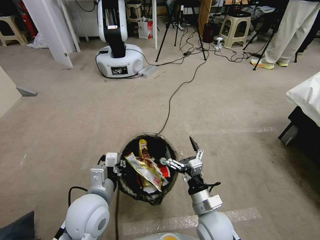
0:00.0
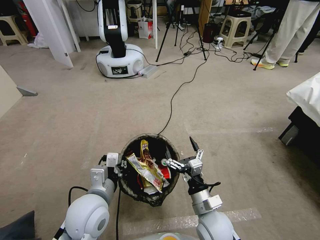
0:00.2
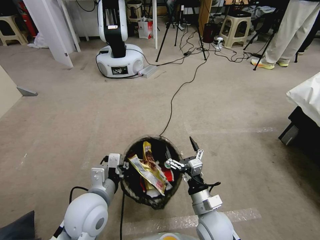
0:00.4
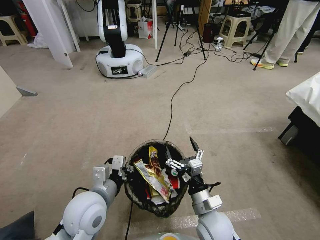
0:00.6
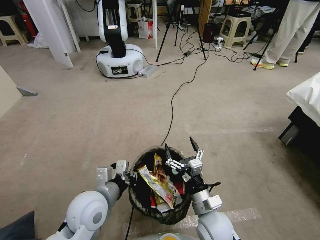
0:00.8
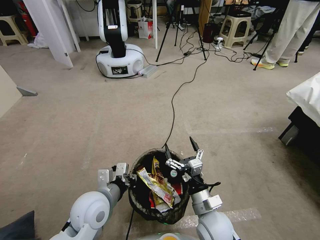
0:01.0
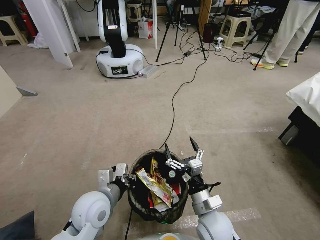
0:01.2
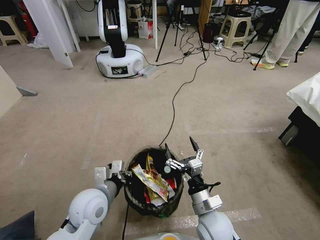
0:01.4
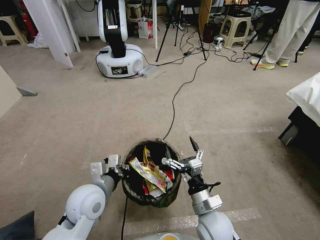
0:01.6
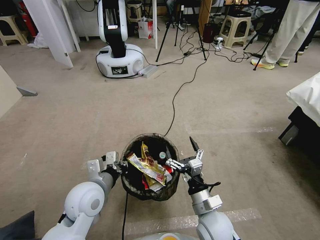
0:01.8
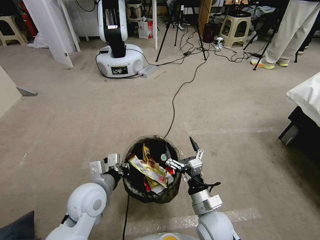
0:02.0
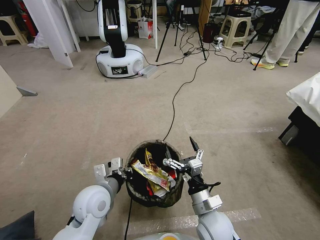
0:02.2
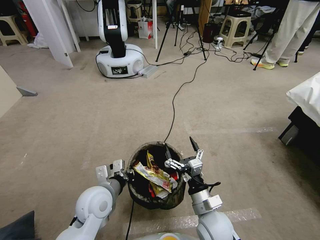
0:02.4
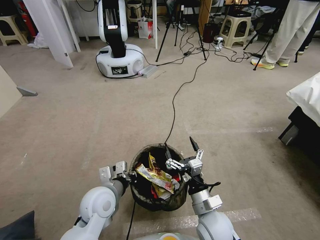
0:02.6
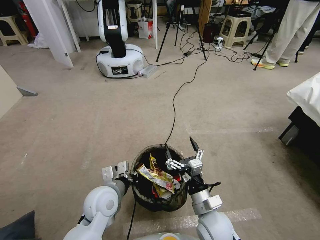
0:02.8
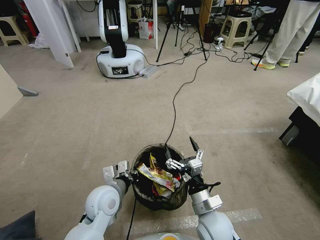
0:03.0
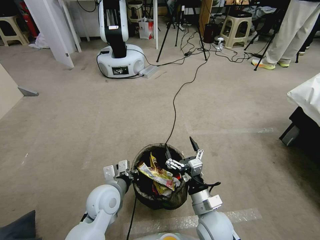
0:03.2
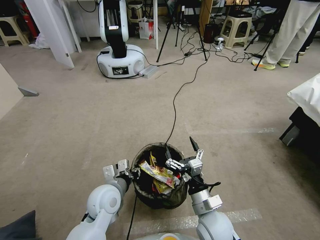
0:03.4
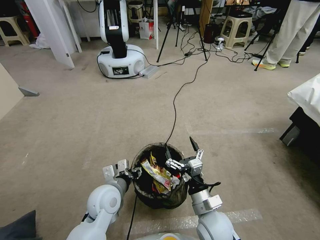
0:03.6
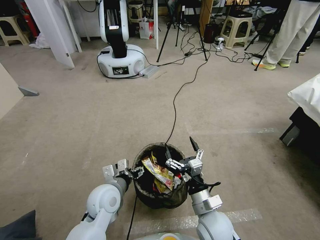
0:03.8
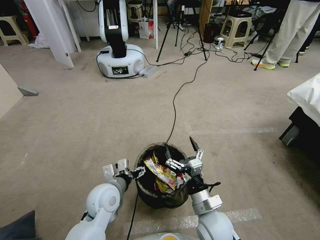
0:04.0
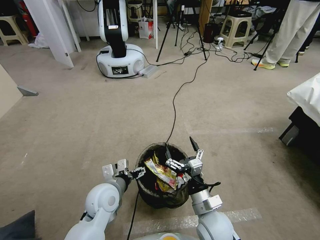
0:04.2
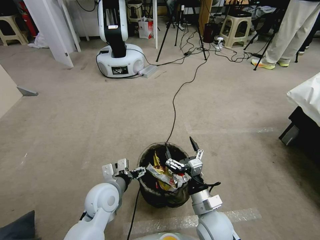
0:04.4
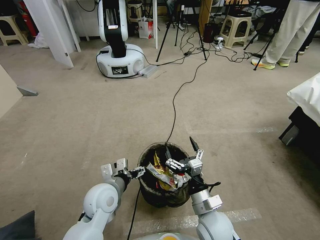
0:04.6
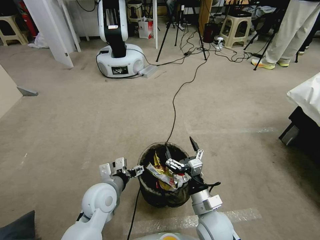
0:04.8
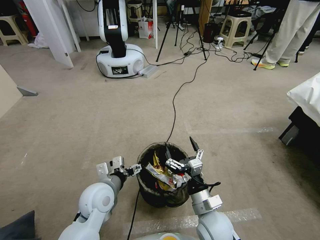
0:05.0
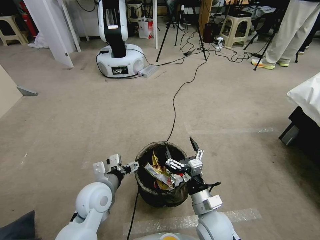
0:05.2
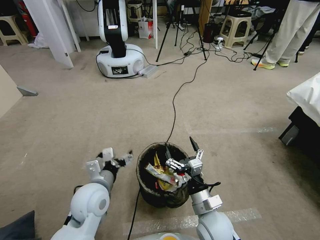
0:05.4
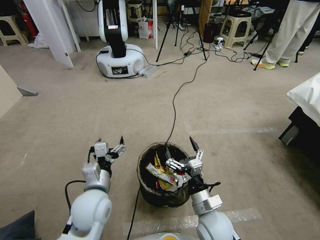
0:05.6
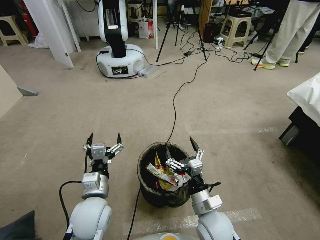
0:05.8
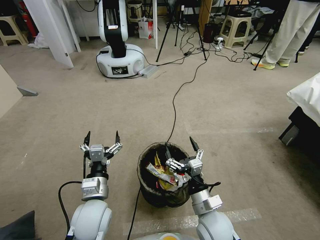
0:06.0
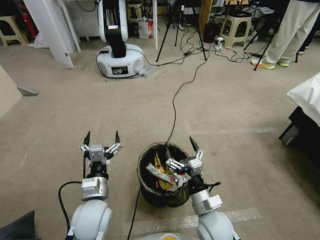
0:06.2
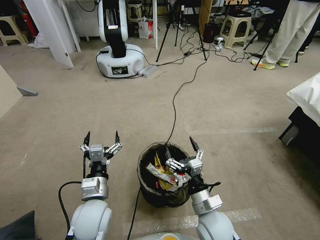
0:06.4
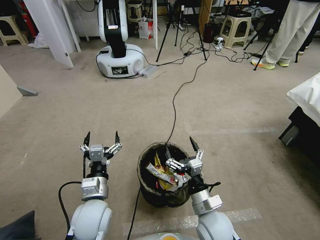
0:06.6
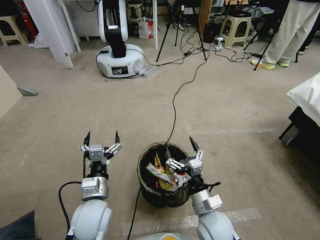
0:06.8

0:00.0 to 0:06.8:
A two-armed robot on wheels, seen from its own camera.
Task of the whole recording: Pick up the trash bin, then pick up the garbage from the floor and place it into the trash bin.
0:01.4 to 0:02.8: The grippers make only small movements.
0:02.8 to 0:04.0: The left gripper opens up.
0:04.0 to 0:05.4: The left gripper moves roughly 5 cm.

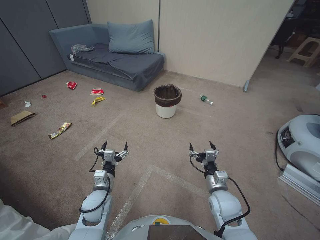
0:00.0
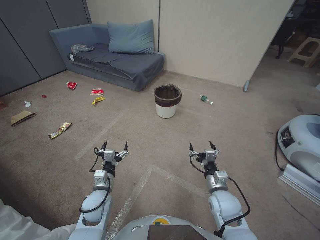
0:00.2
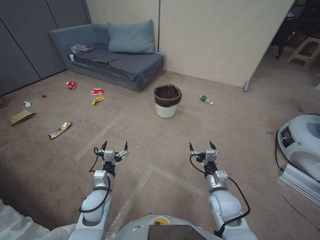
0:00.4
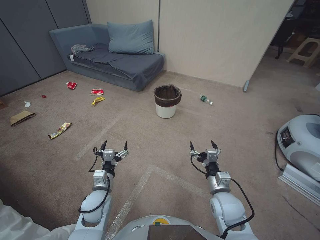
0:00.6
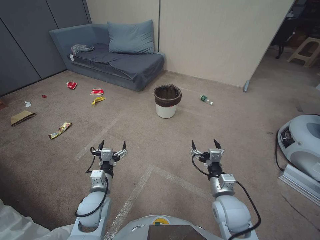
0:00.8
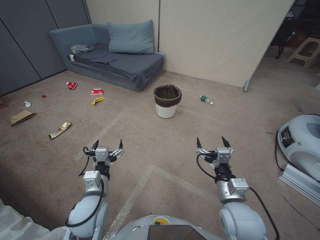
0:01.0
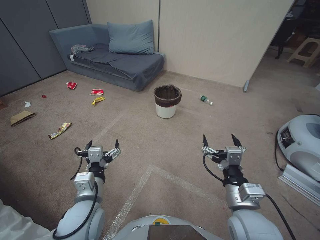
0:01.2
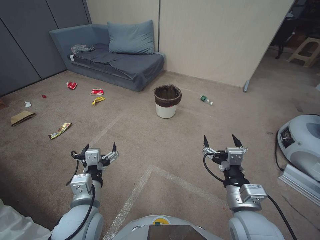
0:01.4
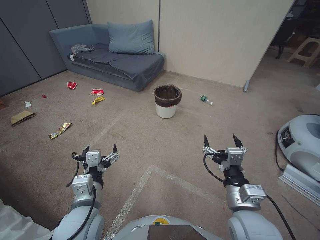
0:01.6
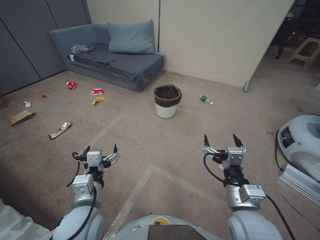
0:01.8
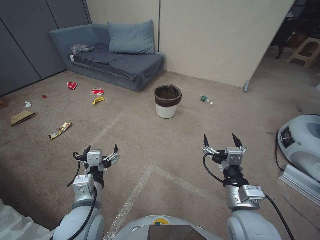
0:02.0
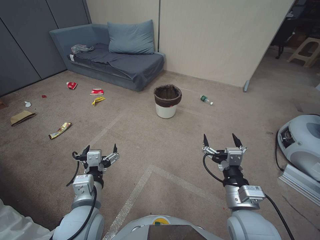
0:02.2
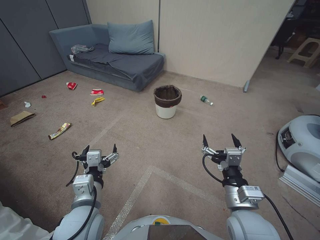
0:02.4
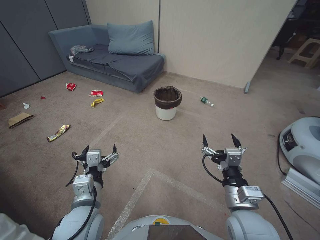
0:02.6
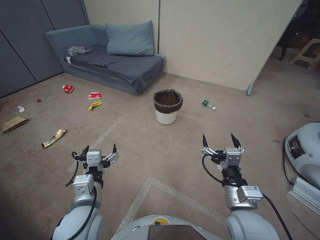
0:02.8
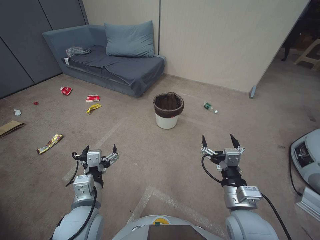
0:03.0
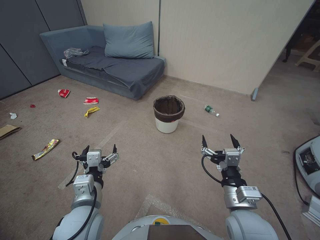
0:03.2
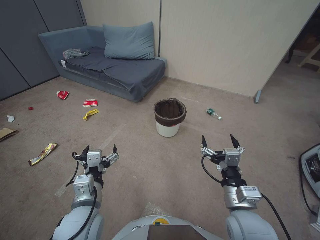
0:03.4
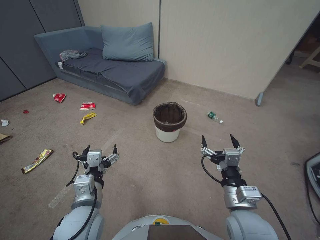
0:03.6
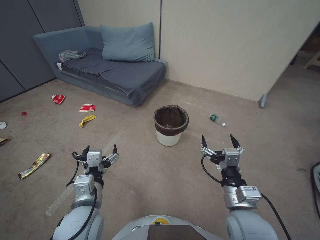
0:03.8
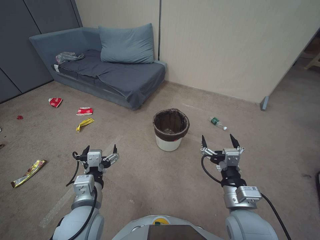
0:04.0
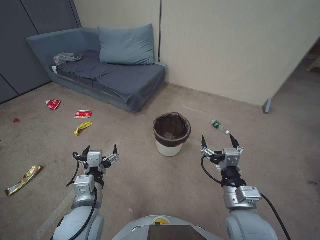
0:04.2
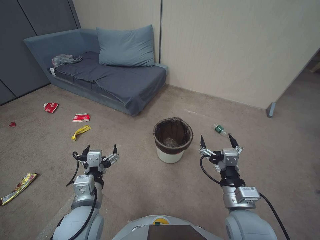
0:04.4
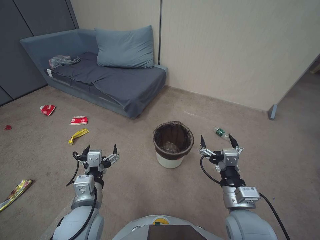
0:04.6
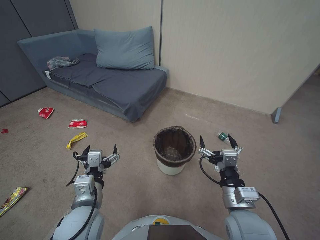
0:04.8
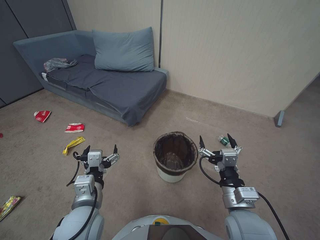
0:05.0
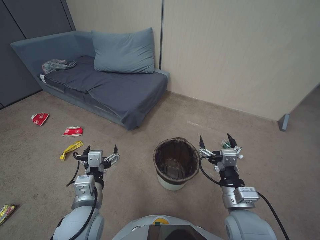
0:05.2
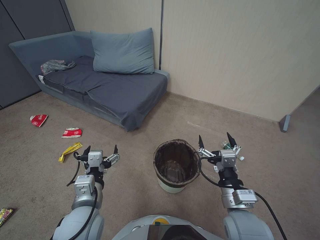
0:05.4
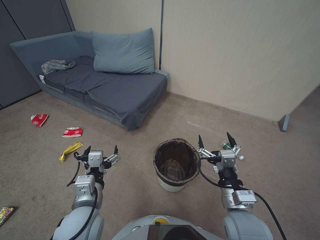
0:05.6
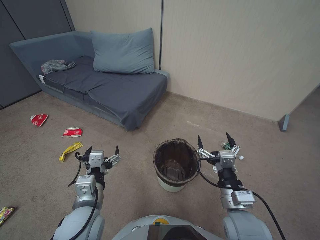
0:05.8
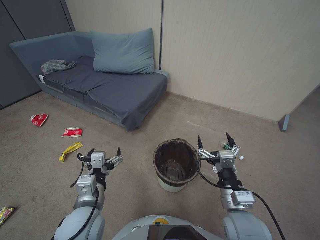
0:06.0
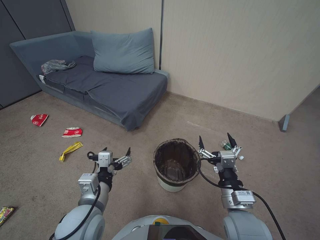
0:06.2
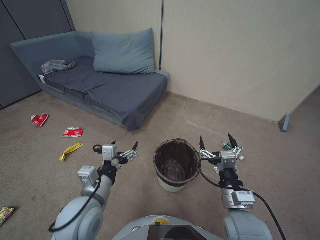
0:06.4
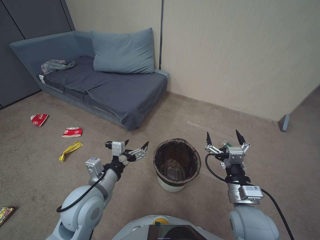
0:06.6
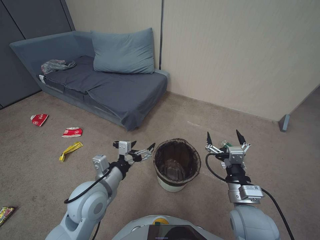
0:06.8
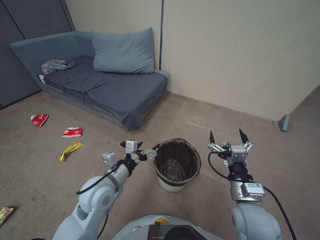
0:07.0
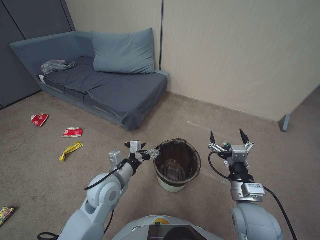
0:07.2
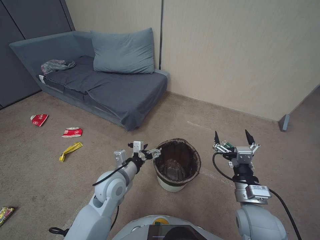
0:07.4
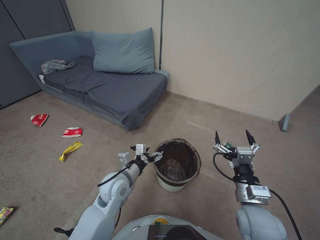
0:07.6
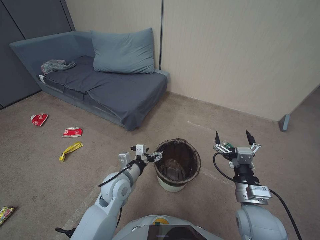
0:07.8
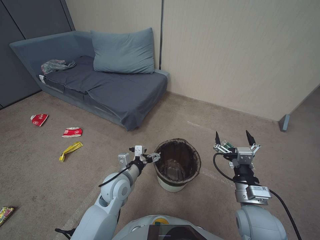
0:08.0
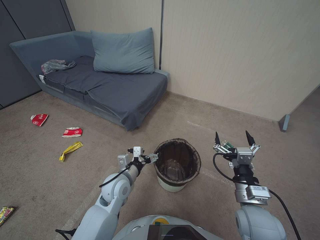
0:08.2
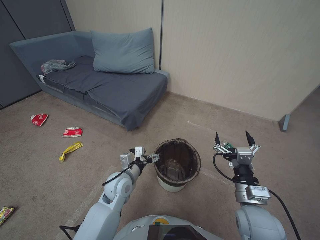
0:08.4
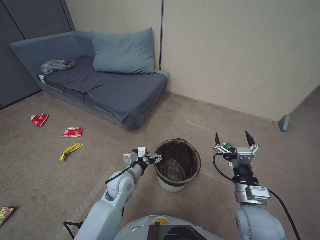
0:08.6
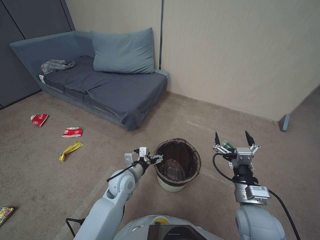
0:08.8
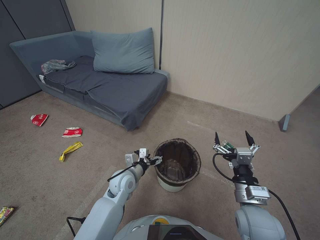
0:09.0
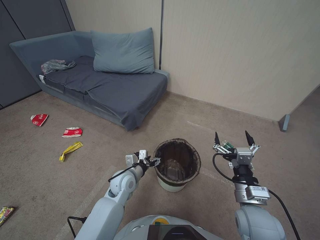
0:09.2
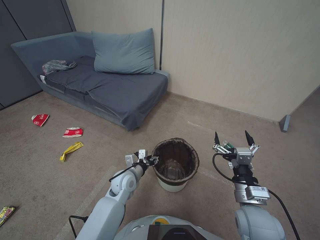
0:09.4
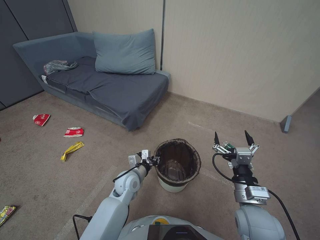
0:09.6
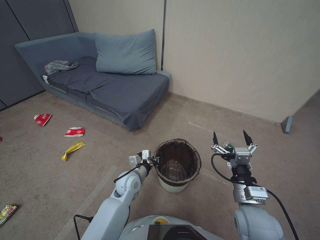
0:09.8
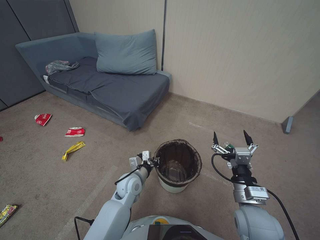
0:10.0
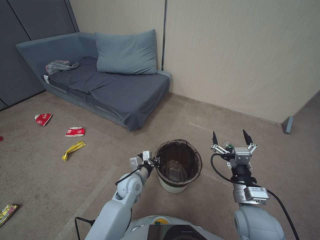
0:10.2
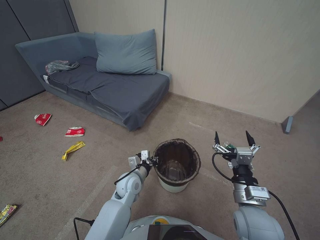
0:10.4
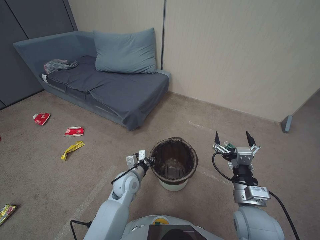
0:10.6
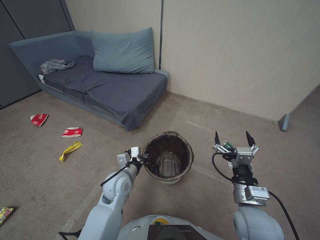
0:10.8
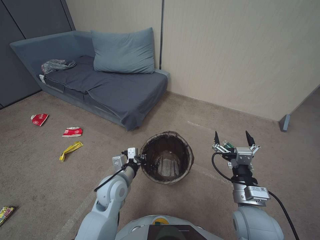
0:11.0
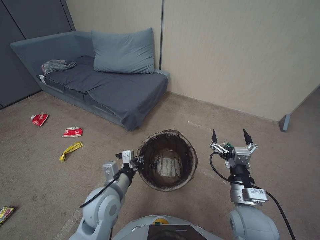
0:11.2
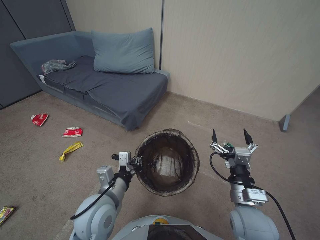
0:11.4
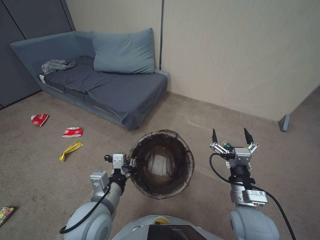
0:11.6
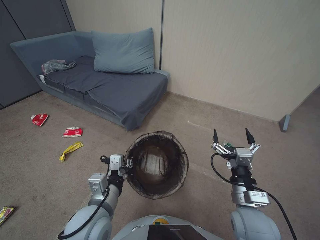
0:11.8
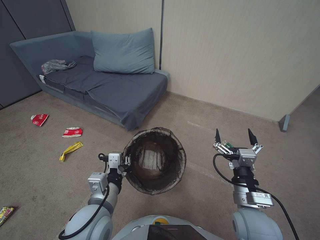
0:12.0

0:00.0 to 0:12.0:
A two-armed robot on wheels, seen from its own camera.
Task of the whole recording: Pick up the trash bin, then pick up the garbage from the floor and place it into the trash bin.
0:01.6 to 0:03.0: There are only small adjustments of the grippers.
0:04.4 to 0:06.0: The grippers move only a little.
0:06.0 to 0:07.6: The left gripper travels forward and downward by some 15 cm.
0:07.6 to 0:09.0: The left gripper is displaced downward by about 5 cm.
0:09.0 to 0:10.4: The left gripper closes up.
0:10.4 to 0:12.0: The left gripper goes roughly 20 cm upward and backward.

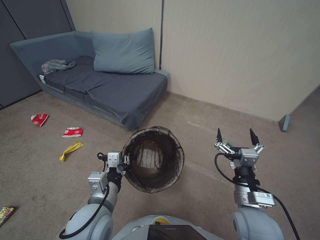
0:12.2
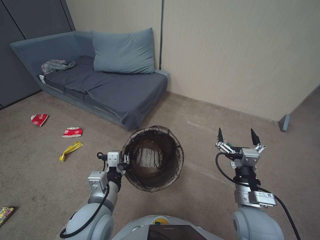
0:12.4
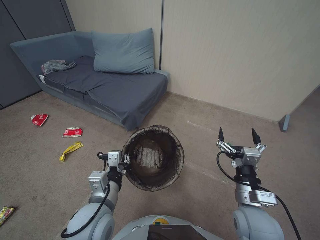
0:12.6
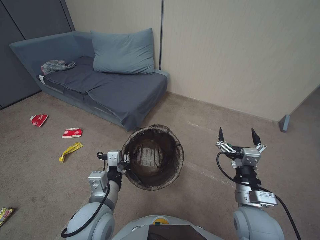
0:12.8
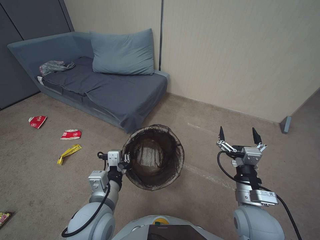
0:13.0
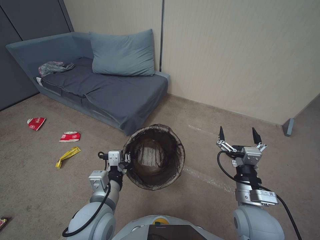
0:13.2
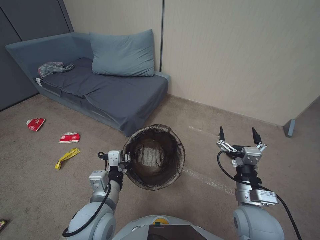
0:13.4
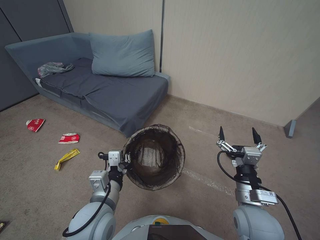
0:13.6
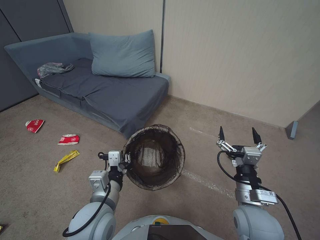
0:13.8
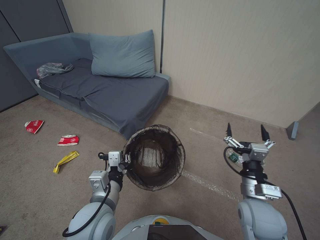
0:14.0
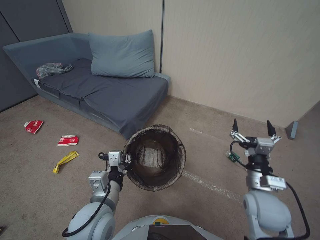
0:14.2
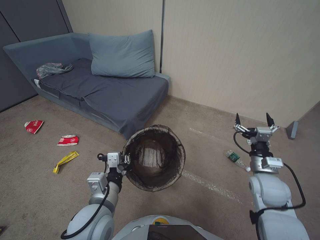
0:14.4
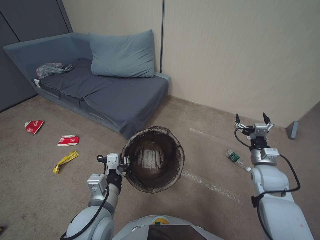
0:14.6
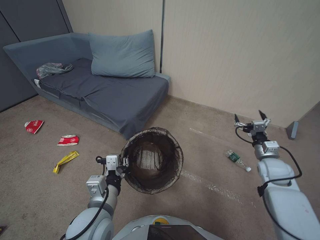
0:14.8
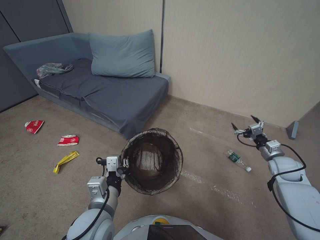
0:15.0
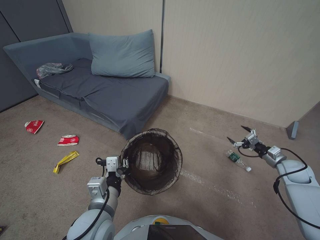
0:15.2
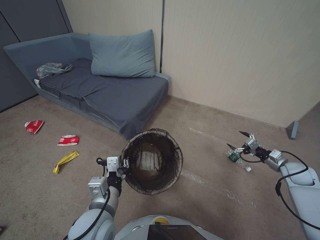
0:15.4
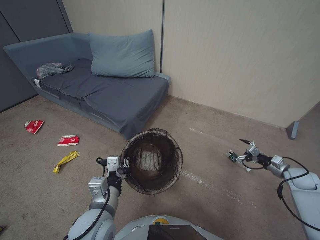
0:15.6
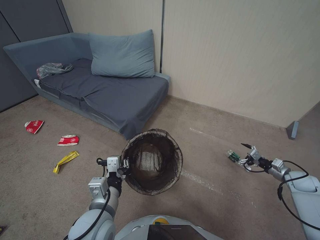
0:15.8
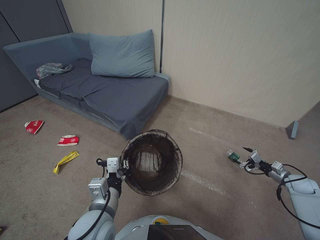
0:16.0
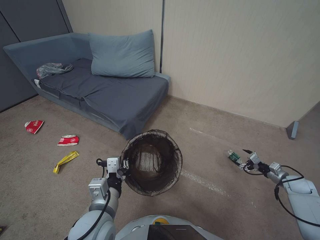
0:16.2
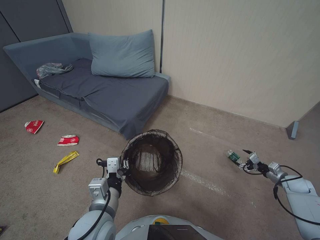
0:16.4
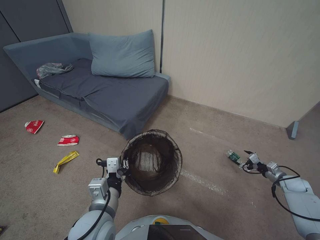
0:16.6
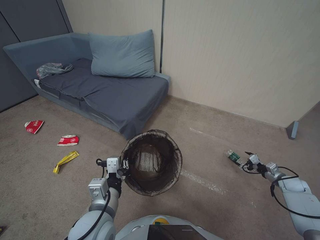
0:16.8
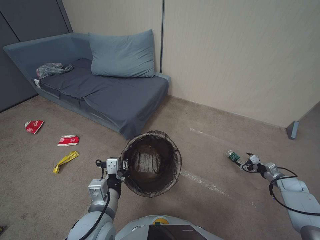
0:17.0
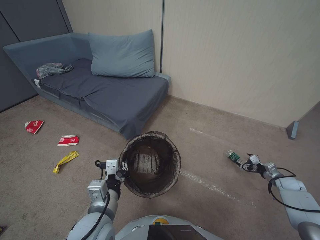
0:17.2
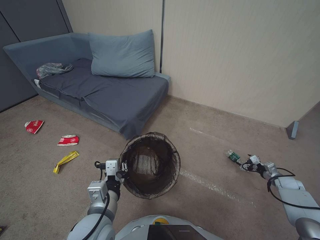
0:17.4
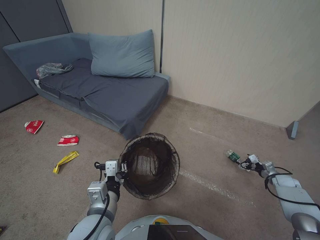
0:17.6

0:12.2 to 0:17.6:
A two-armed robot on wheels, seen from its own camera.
Task of the whole recording: Pick up the trash bin, then pick up the garbage from the floor and place it into the trash bin.
0:12.2 to 0:13.6: The two grippers keep their place.
0:13.6 to 0:15.0: The right gripper shifts some 20 cm to the right and forward.
0:15.0 to 0:16.2: The right gripper moves to the right and downward, about 25 cm.
0:16.2 to 0:17.6: The right gripper moves downward, approximately 10 cm.
